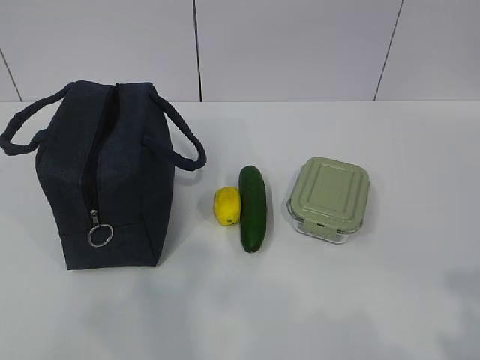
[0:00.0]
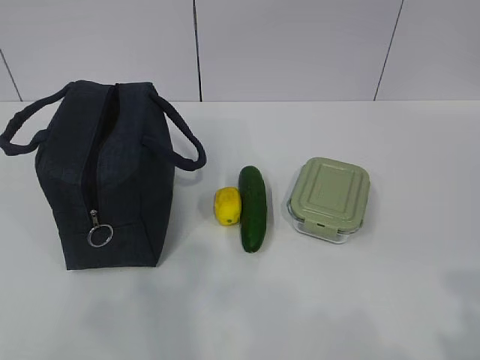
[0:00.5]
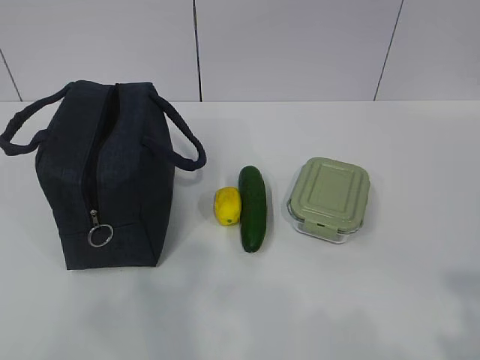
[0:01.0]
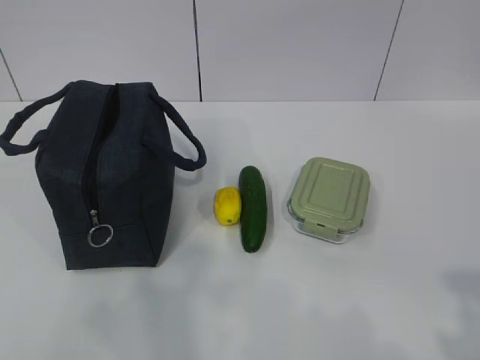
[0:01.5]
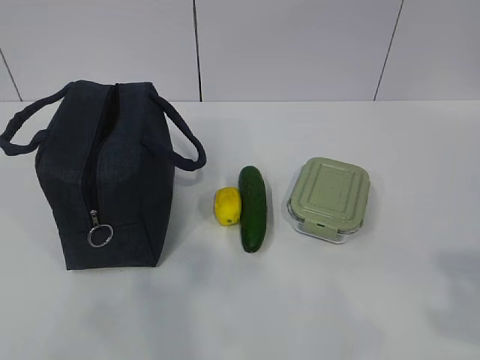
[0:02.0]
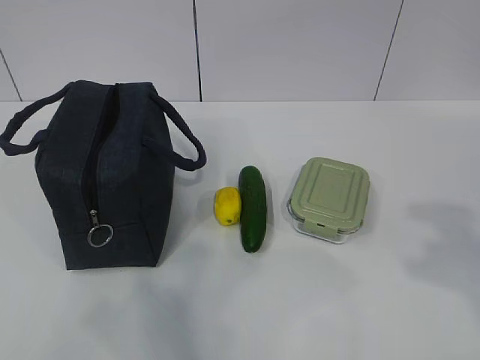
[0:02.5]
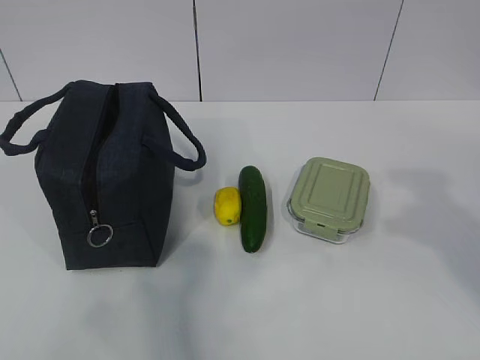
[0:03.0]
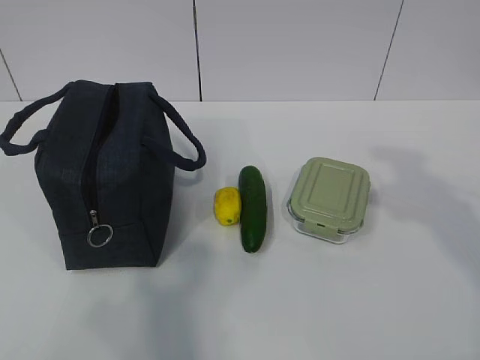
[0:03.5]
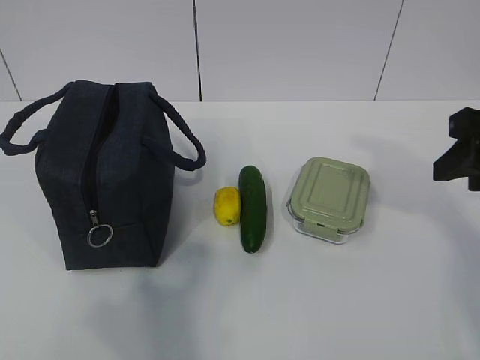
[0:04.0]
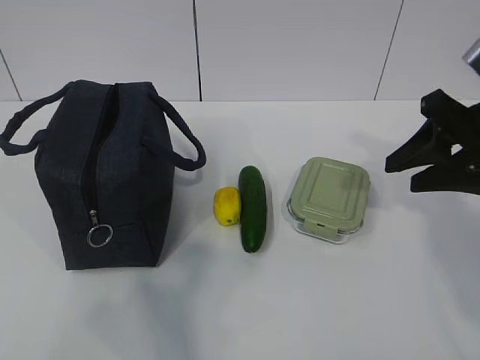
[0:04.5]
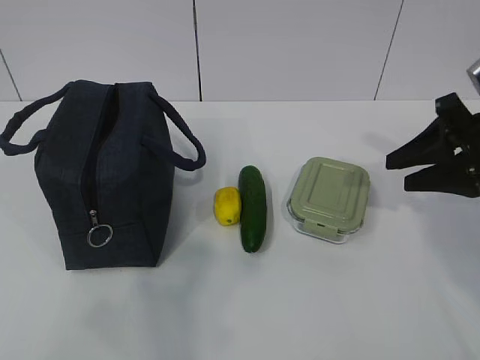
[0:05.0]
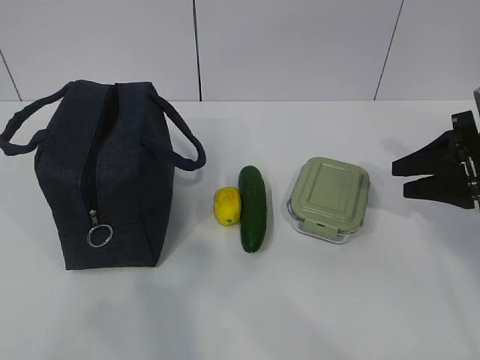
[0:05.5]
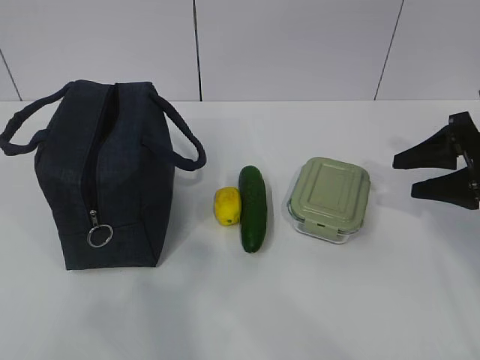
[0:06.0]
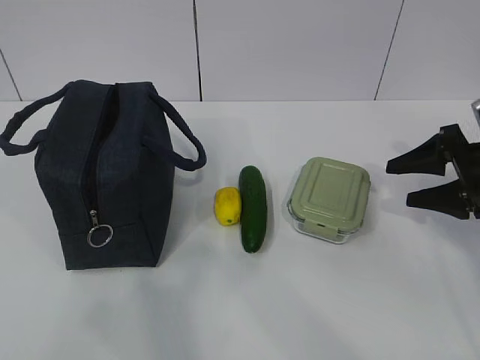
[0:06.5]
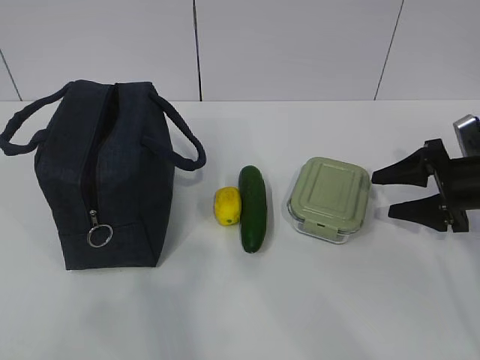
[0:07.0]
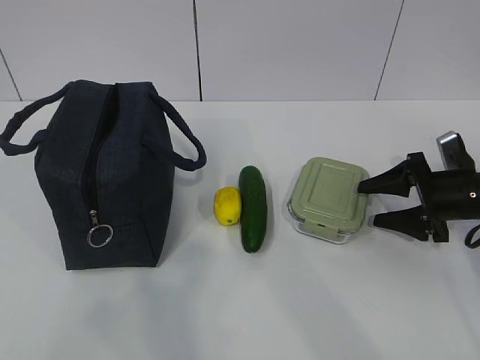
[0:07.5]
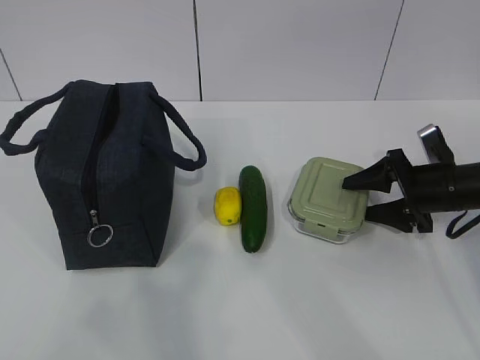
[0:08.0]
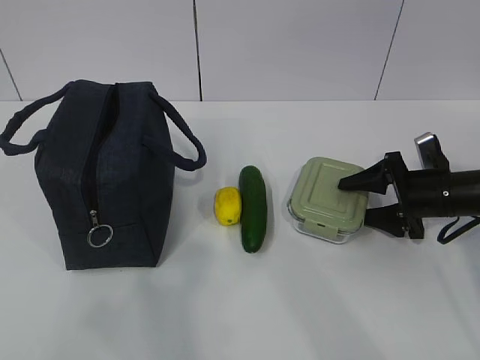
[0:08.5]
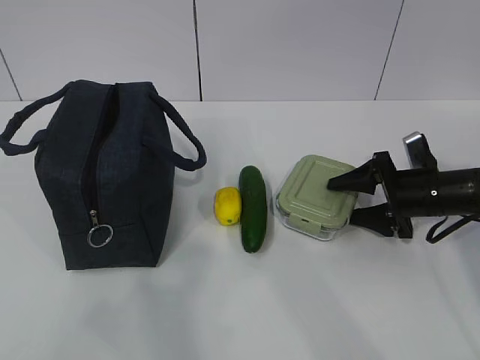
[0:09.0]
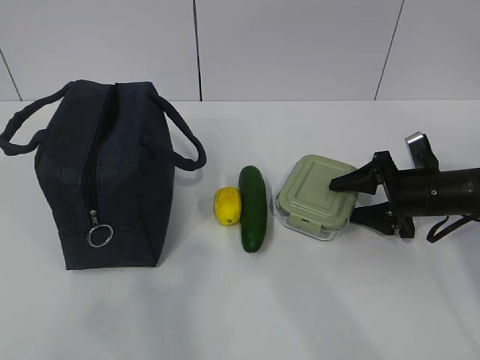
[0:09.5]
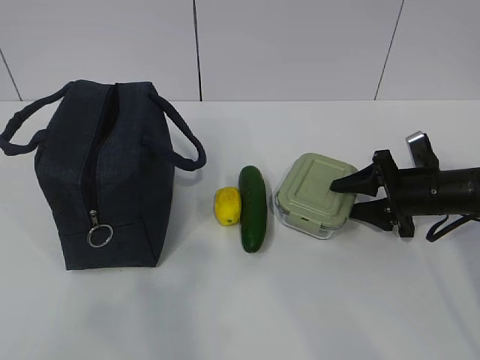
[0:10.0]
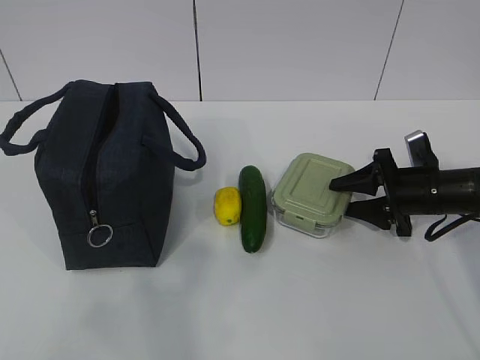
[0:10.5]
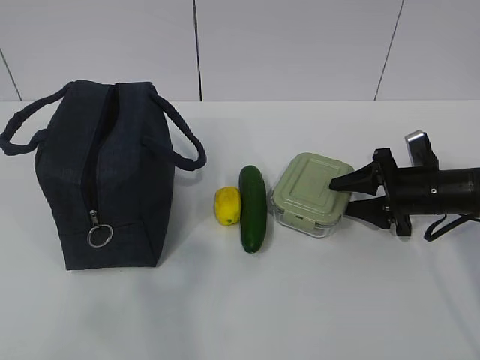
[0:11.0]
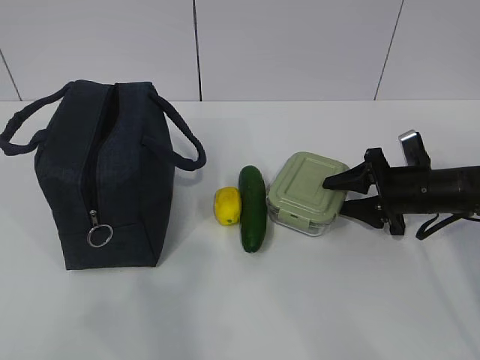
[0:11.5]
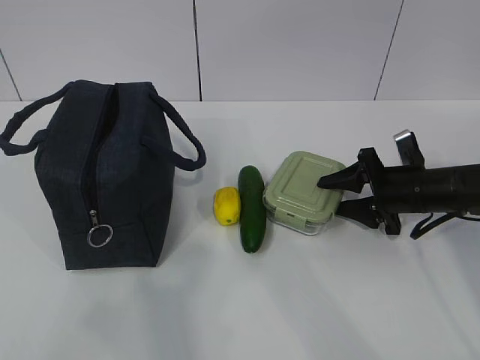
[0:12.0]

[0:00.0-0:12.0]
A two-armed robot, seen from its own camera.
Step, 0:00.0 to 0:11.5: Grab the lunch box with your right hand.
0:02.0 to 0:04.0: The right gripper goes roughly 25 cm forward.
0:04.0 to 0:06.0: The right gripper shifts roughly 15 cm downward, forward and to the right.
0:06.0 to 0:08.0: The right gripper heads downward, covering about 10 cm.
0:08.0 to 0:12.0: The grippers move only a little.

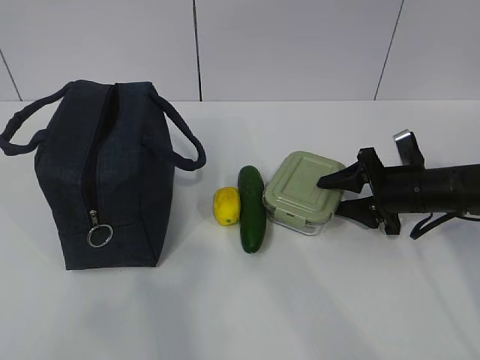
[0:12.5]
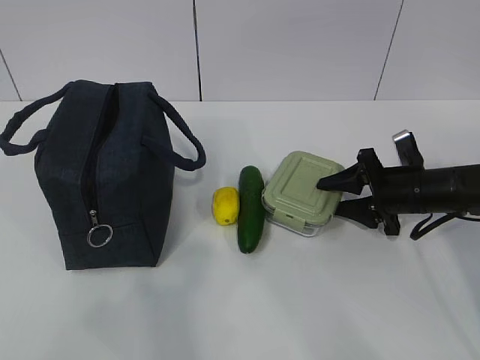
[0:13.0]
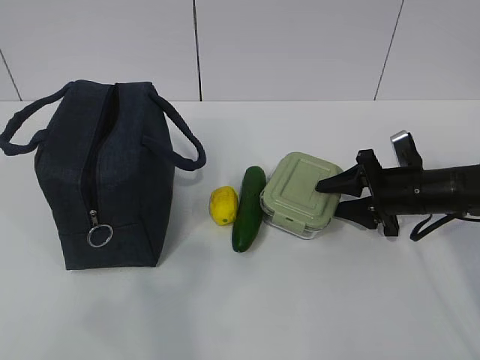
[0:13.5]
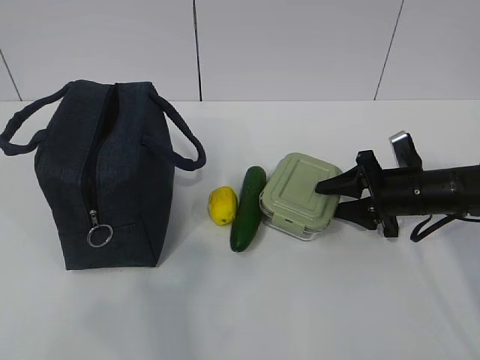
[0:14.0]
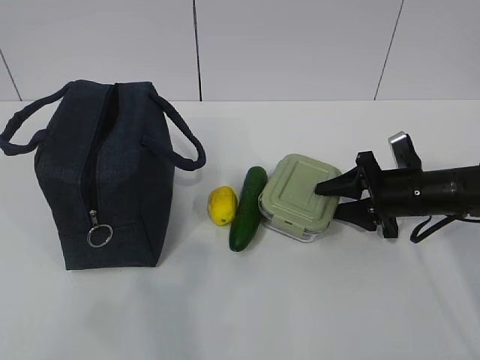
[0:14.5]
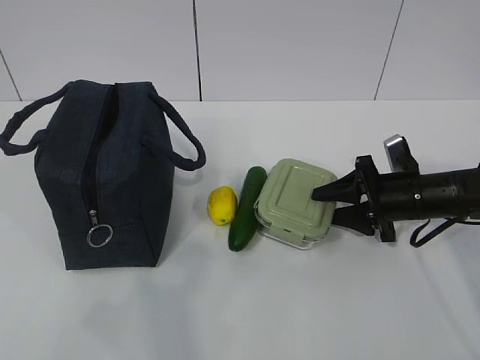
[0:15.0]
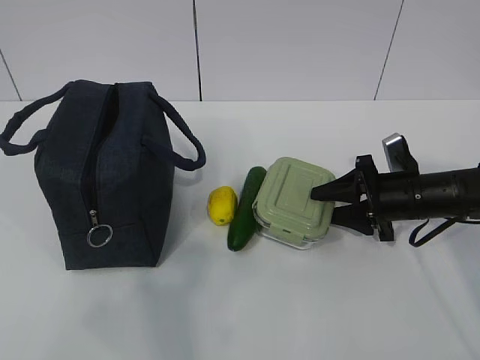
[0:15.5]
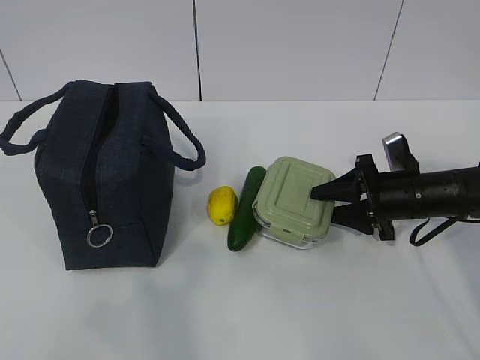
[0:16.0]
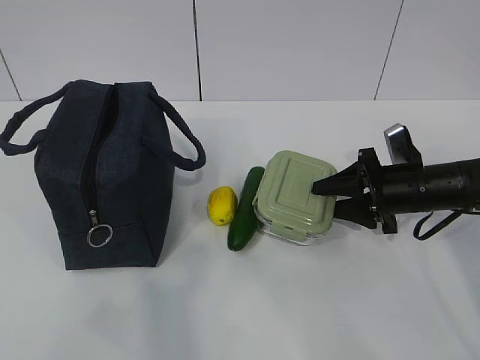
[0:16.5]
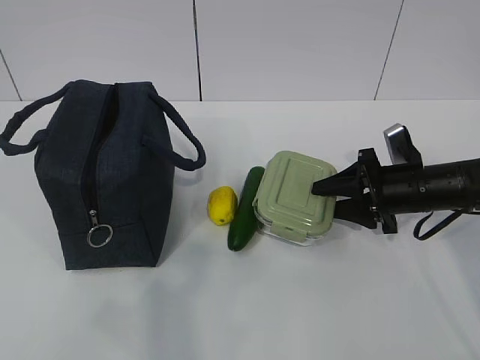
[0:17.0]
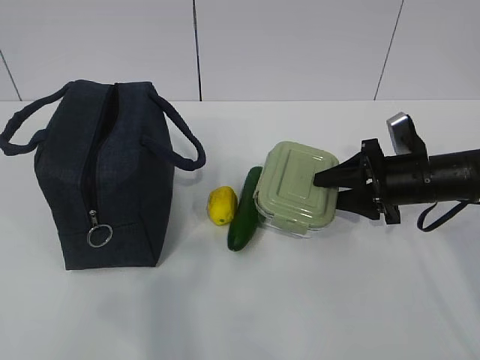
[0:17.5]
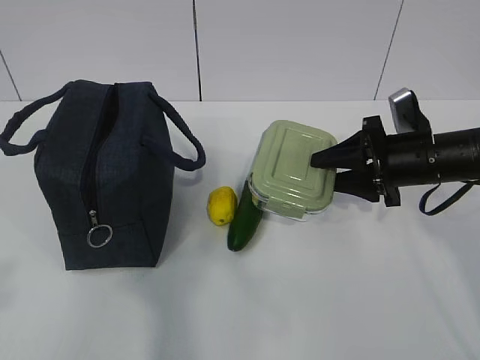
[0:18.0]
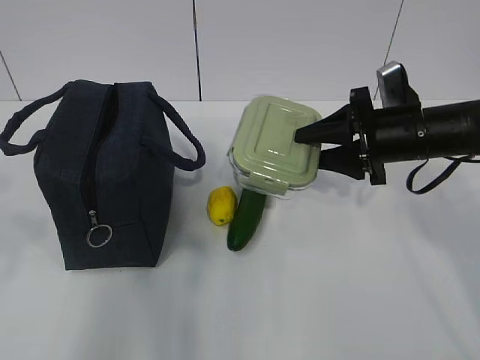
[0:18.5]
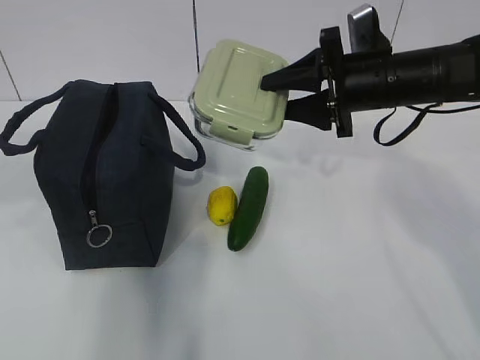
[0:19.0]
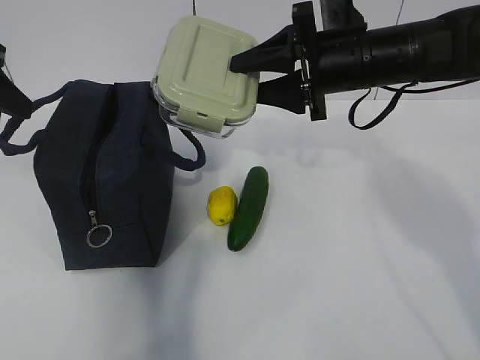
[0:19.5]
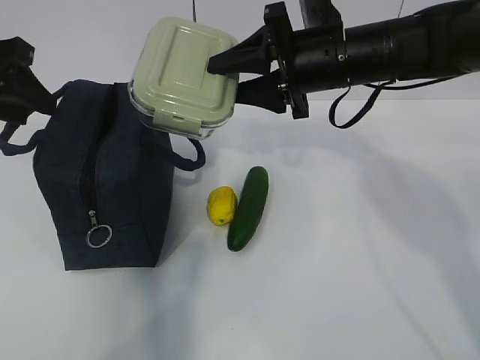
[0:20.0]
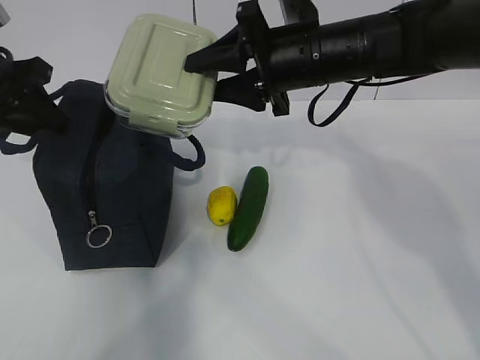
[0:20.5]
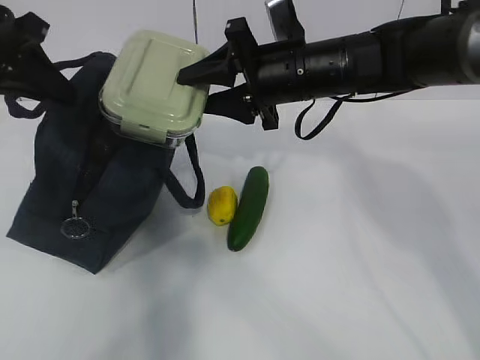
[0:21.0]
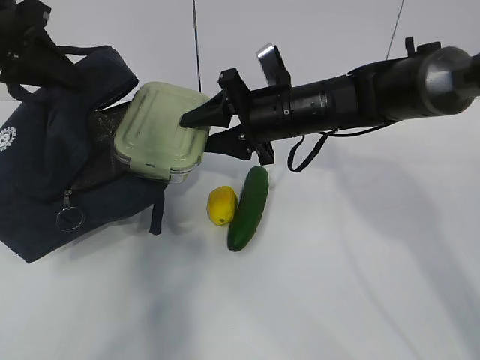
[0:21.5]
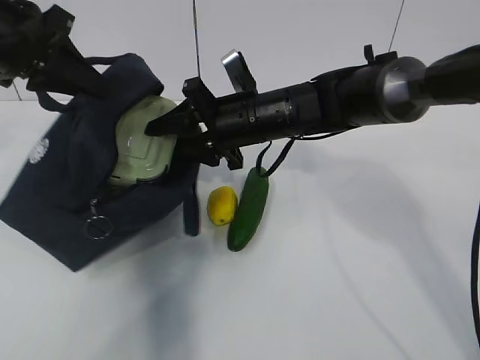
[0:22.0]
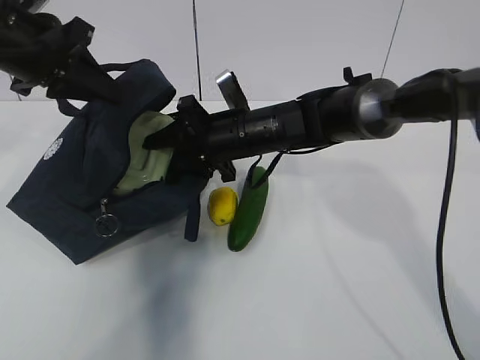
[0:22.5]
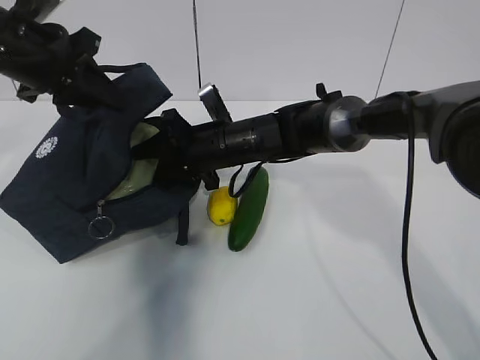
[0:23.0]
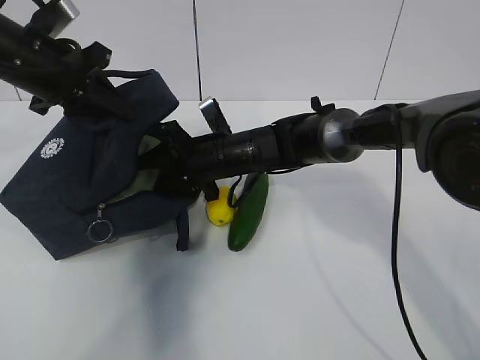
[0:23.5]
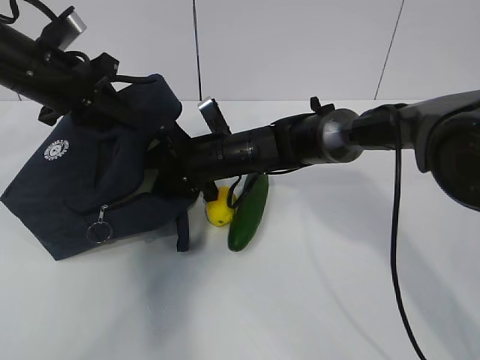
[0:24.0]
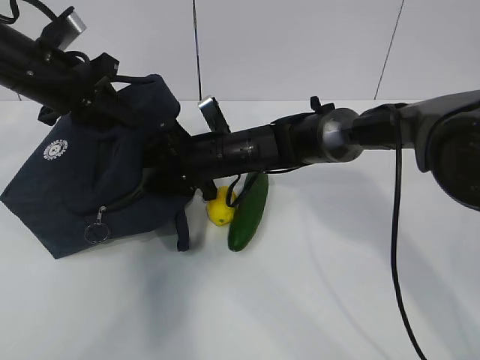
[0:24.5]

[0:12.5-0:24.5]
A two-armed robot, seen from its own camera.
Step, 0:12.5 to 0:17.0: Grab the lunch bag with your left hand.
Step, 0:17.5 to 0:20.5: Place it into the bag with your right hand.
Step, 0:21.5 to 0:24.0: Grab the cucumber with your right hand.
0:12.5 to 0:14.5: Neither gripper changes place.
0:14.5 to 0:16.5: There are only small adjustments of the grippers.
0:16.5 to 0:18.5: The left gripper goes about 10 cm forward. The right gripper moves upward, about 10 cm.
0:18.5 to 0:20.5: The left gripper travels forward by about 25 cm. Meanwhile the right gripper heads to the left and upward, covering about 15 cm.
0:20.5 to 0:22.5: The left gripper ends up approximately 5 cm from where it was, and closes its fingers; the right gripper shifts about 15 cm downward and to the left.
0:22.5 to 0:24.5: The left gripper changes place by about 5 cm. Meanwhile the right gripper changes place by some 5 cm.

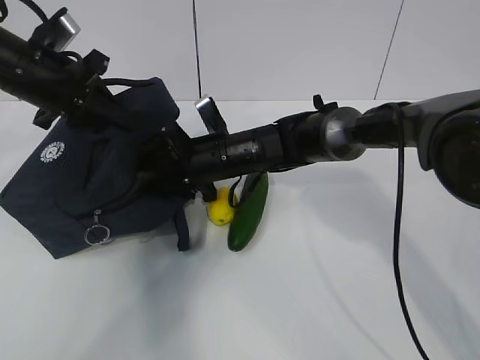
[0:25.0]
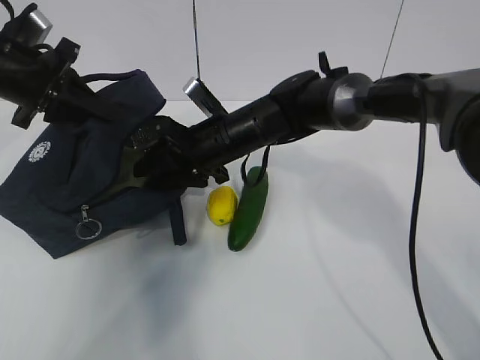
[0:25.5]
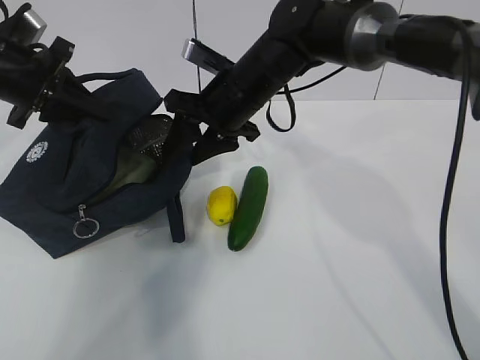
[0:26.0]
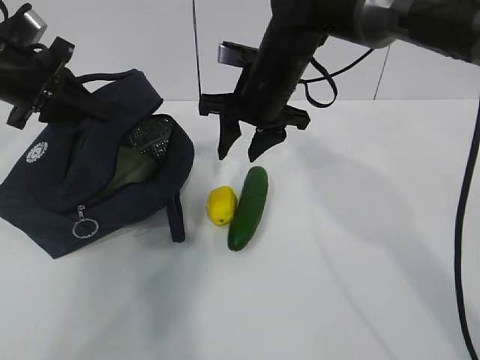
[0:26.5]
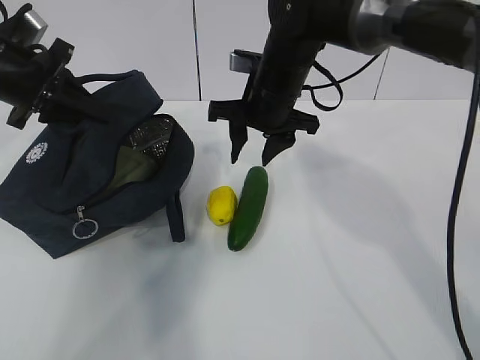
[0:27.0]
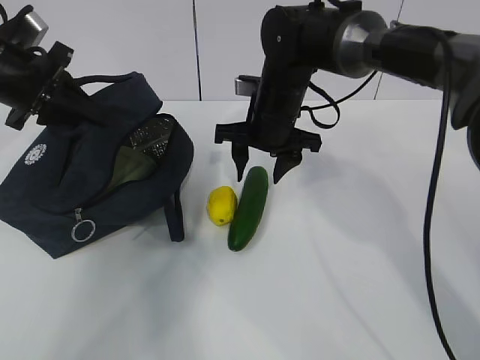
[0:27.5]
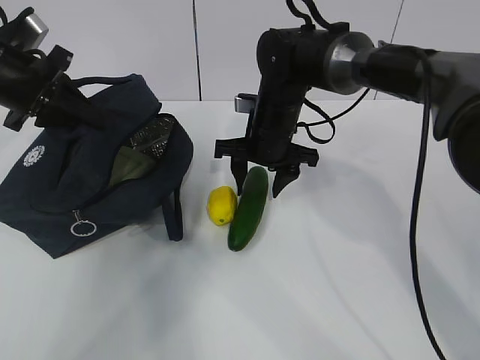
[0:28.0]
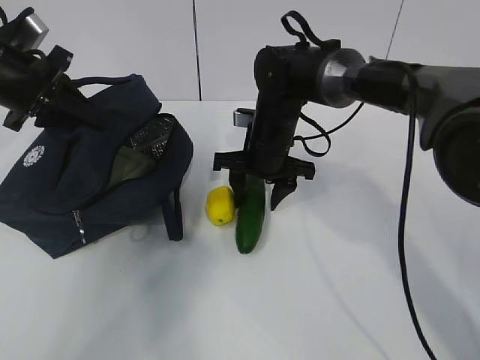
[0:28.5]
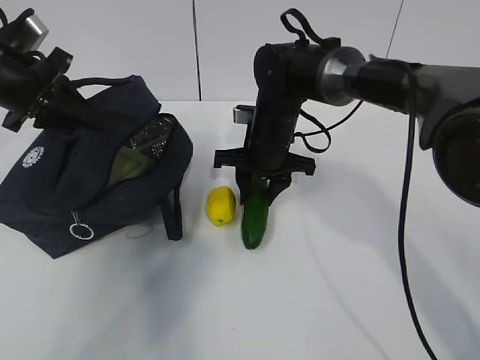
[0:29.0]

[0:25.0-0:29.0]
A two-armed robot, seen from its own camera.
Step, 0:25.0 to 0:27.5: Place it into the bag with your right hand.
0:25.0 to 0:27.0: The right gripper shifts some 10 cm upward and to the right.
0:27.0 to 0:29.0: The right gripper heads downward, covering about 10 cm.
